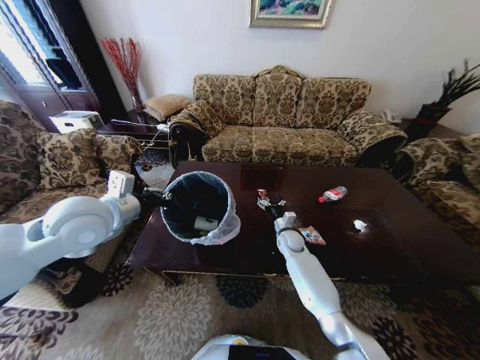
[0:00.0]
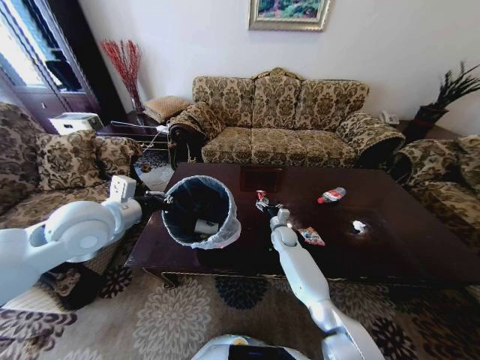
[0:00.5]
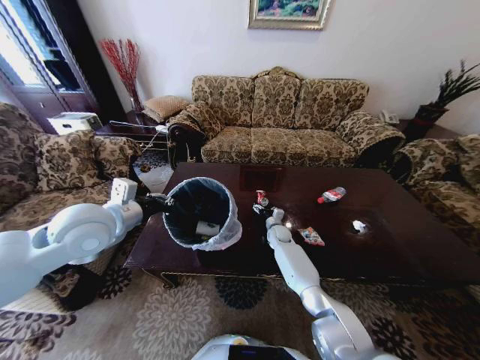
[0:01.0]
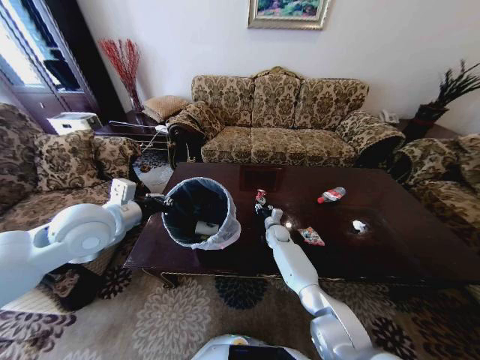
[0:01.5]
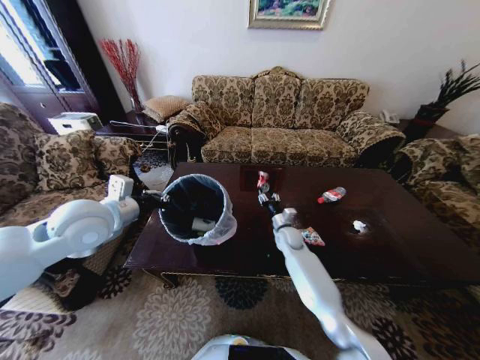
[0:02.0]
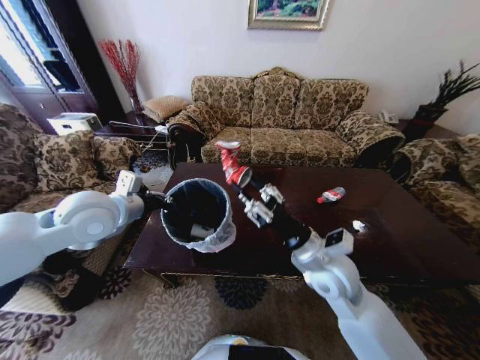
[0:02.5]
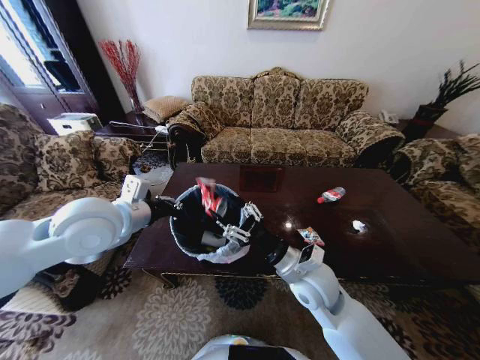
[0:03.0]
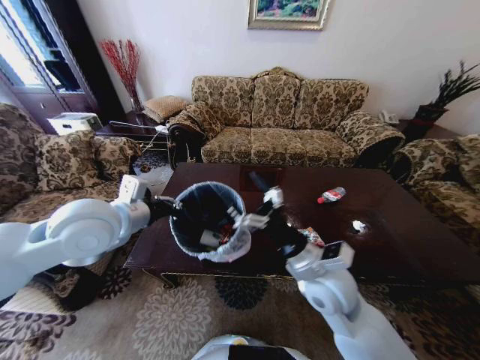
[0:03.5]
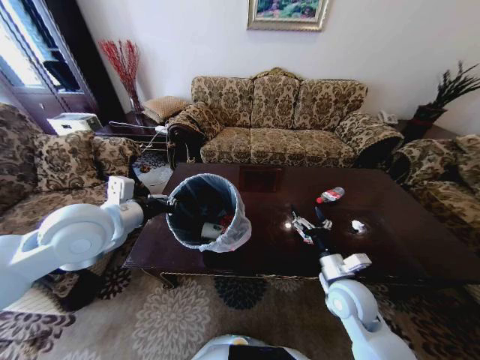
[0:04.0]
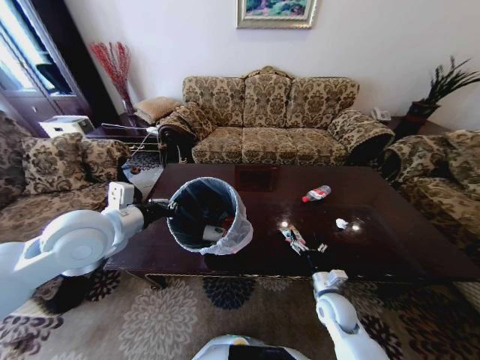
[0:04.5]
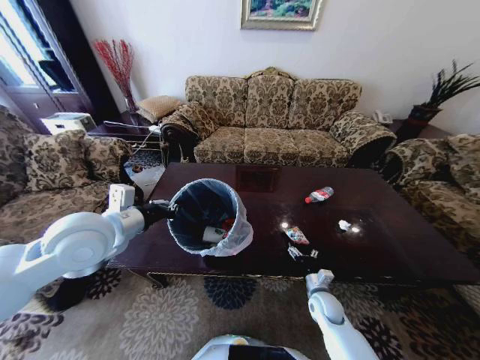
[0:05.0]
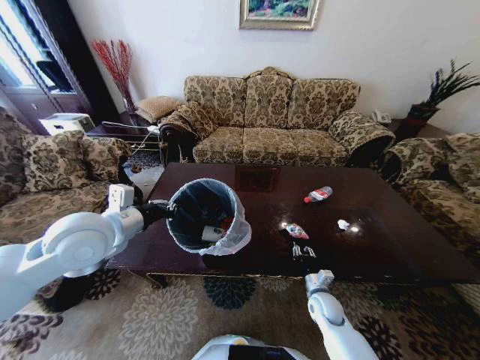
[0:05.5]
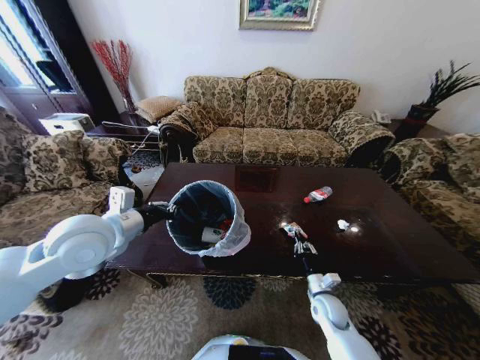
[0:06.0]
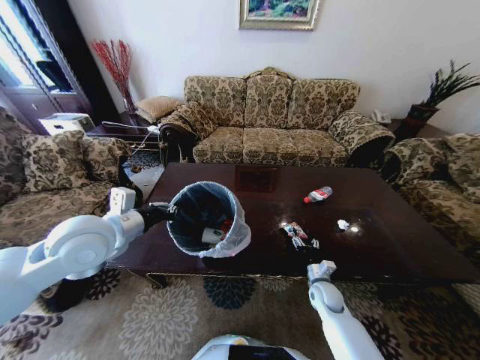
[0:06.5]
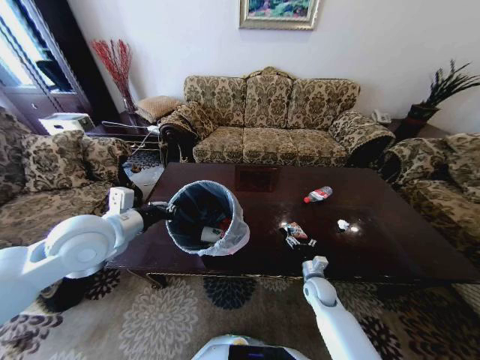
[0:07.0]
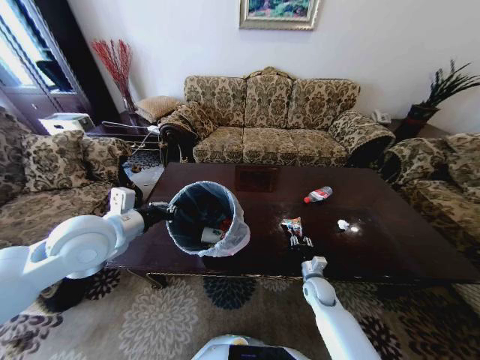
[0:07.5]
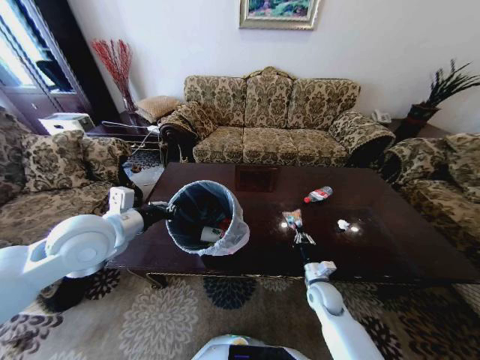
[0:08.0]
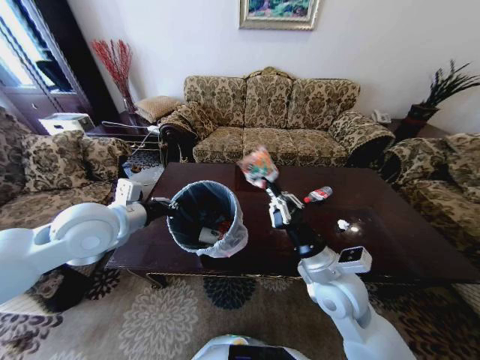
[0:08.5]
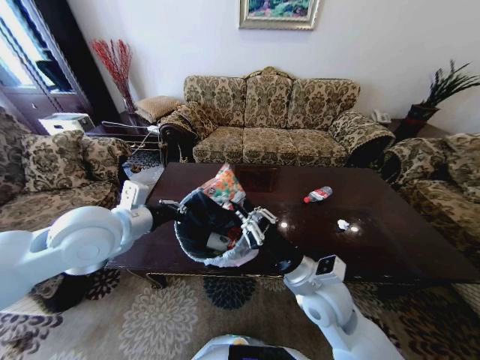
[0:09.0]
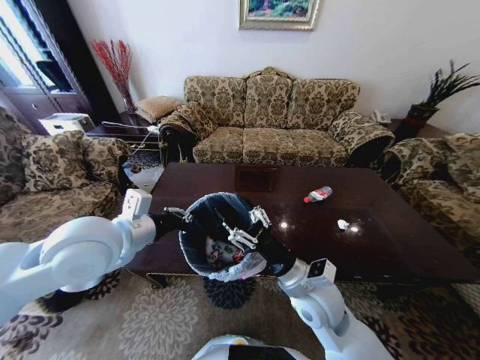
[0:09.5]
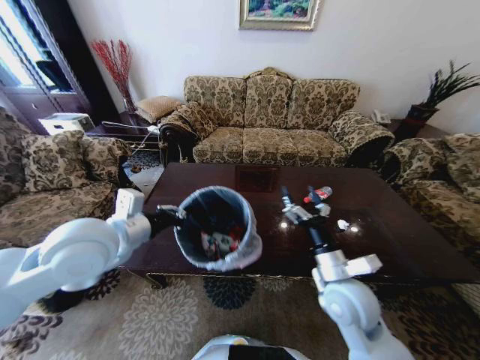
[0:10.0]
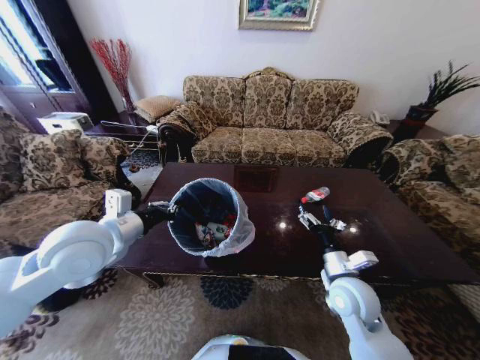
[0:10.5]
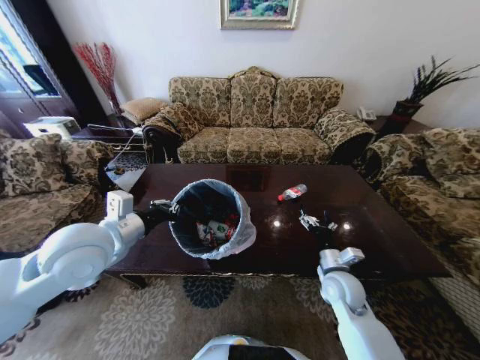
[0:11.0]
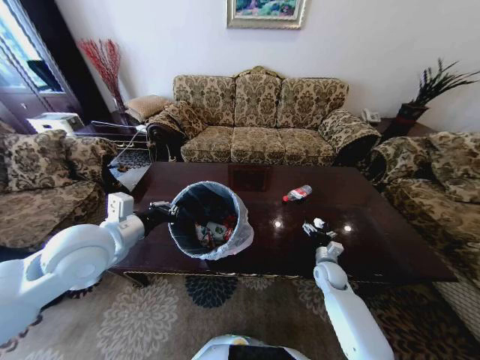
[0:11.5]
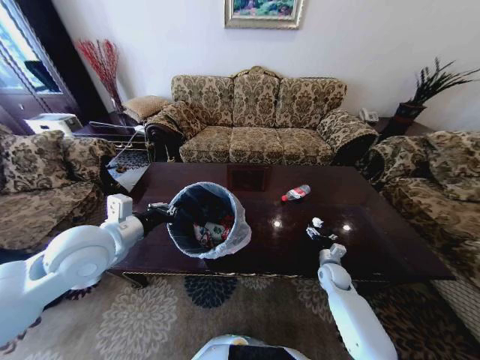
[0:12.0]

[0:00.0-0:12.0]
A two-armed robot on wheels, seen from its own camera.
Task of the whole recording: Move to the front of the table and place the trash on the table into the trash bin.
0:00.0 to 0:02.0: The right gripper closes its fingers.
0:02.0 to 0:04.0: The right gripper travels backward by roughly 20 cm, and opens its fingers.
0:04.0 to 0:06.0: The right gripper is displaced downward by about 15 cm, and closes its fingers.
0:06.0 to 0:08.0: The right gripper opens, then closes once more.
0:08.0 to 0:10.0: The right gripper goes some 20 cm upward, and opens up.
0:10.0 to 0:12.0: The right gripper travels downward, forward and to the right by roughly 30 cm.

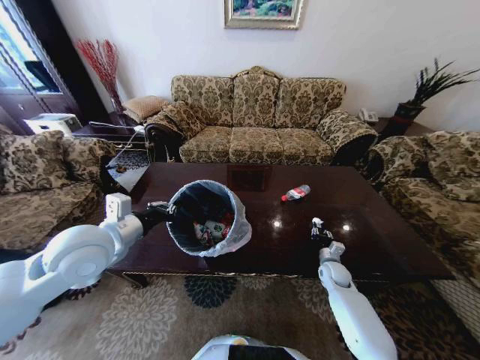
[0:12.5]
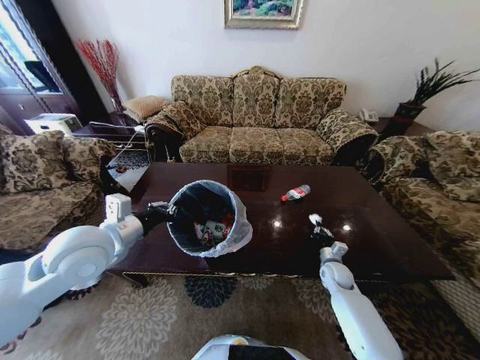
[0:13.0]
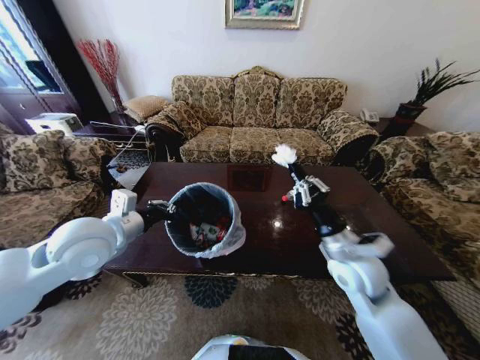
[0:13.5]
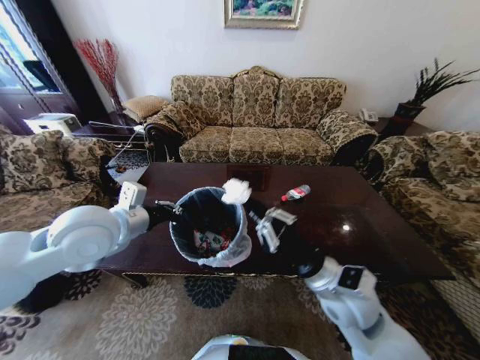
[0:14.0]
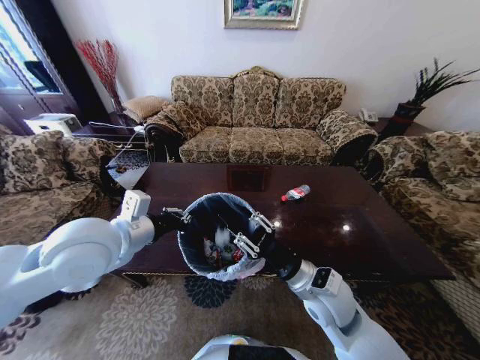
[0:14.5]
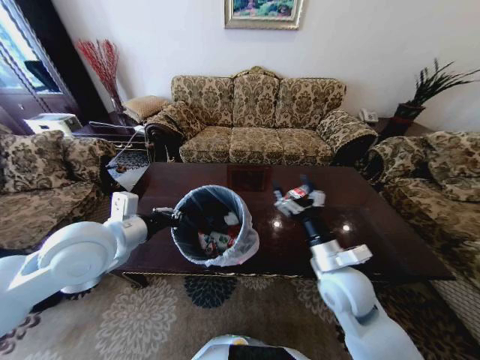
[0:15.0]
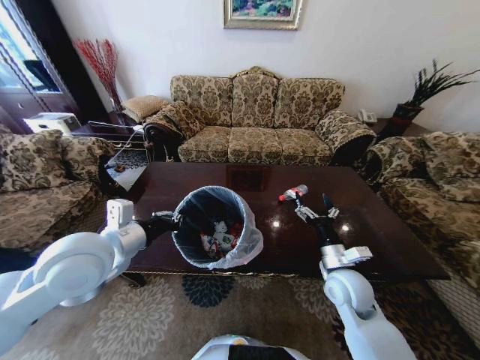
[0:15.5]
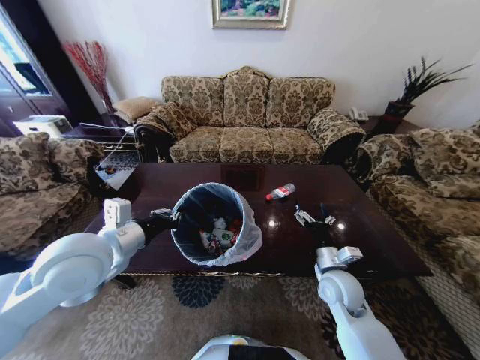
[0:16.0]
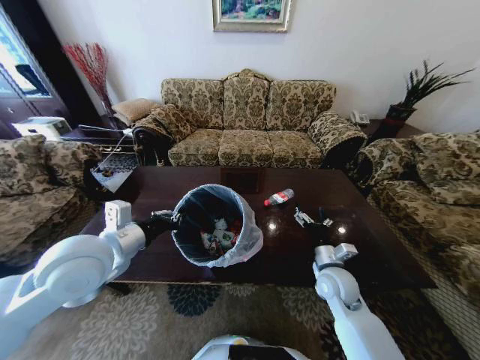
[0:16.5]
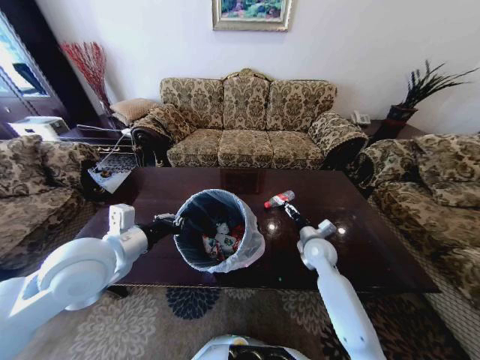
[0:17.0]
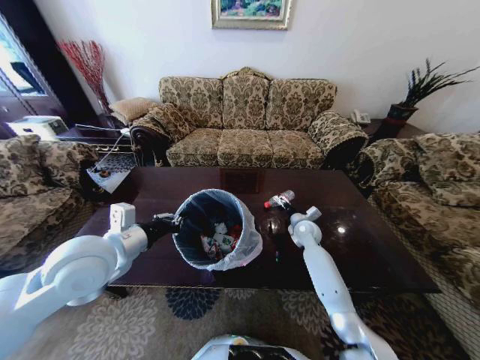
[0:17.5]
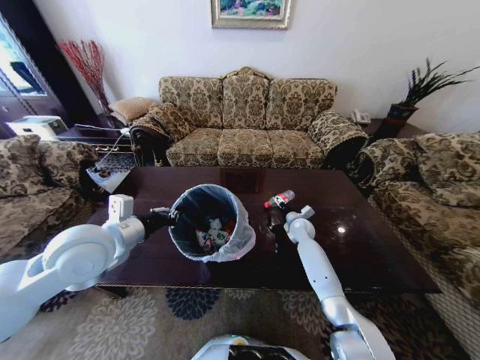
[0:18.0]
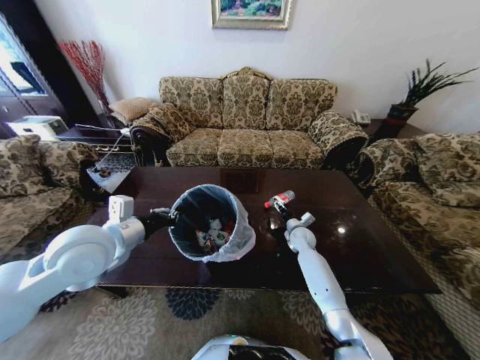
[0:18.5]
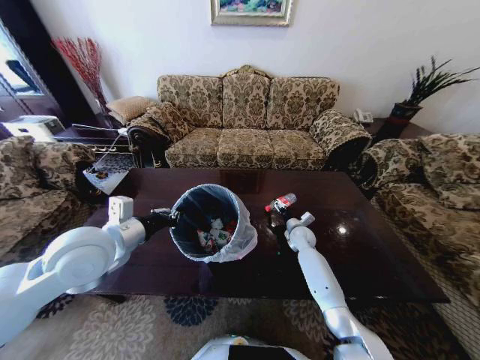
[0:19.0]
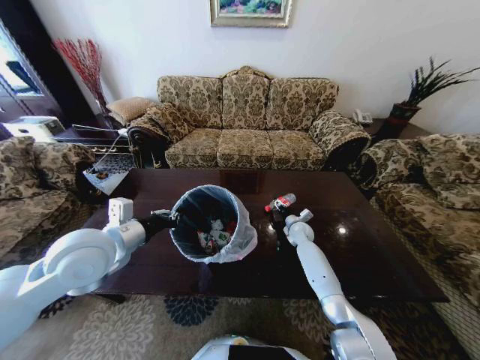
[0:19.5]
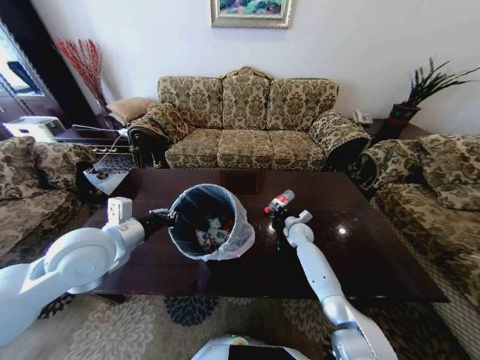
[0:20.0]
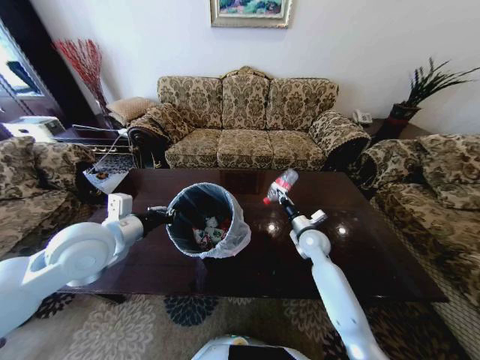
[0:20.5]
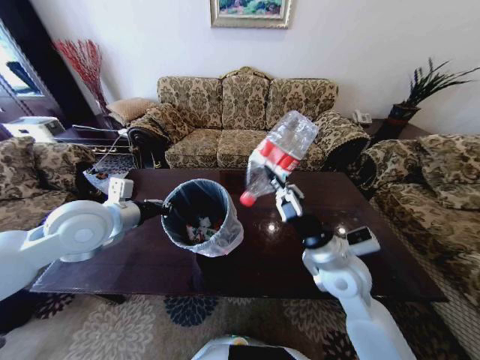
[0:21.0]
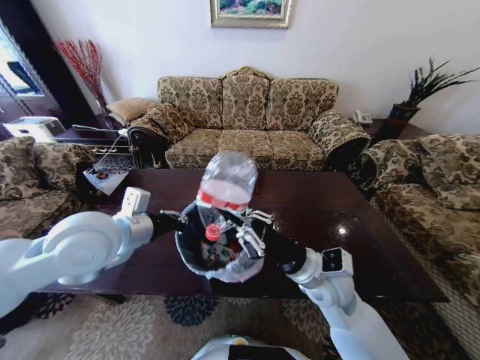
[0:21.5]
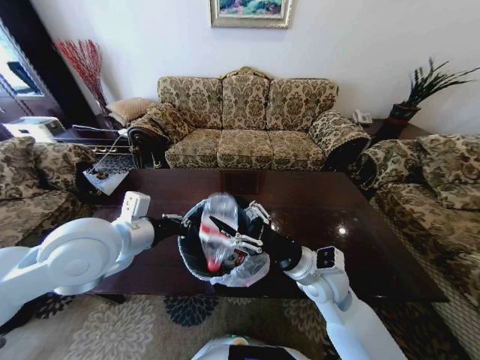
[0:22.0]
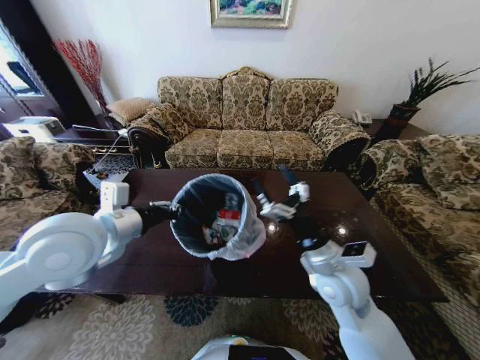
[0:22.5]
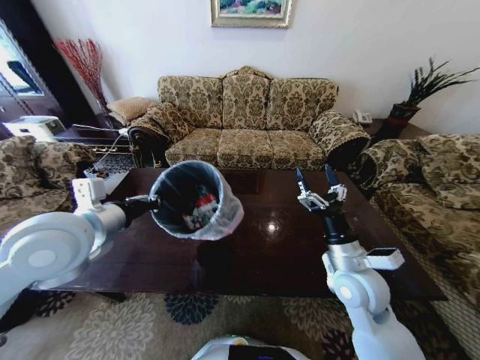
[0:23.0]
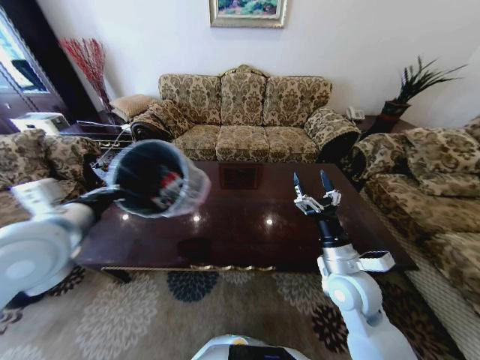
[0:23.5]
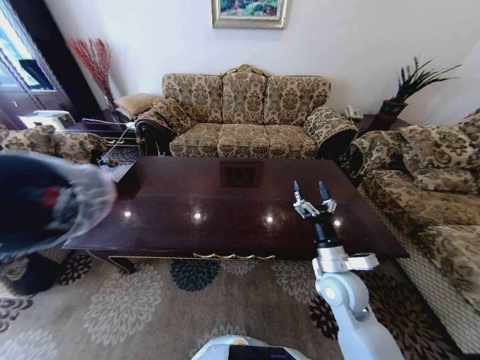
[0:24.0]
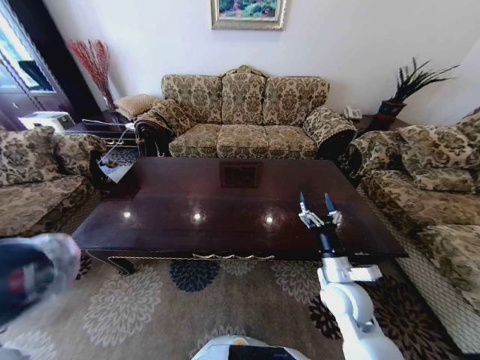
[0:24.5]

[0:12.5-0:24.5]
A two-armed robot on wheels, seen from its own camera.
Task of the whole recording: Move to the front of the table and place the trash on the table into the trash bin.
0:12.5 to 0:14.5: The right gripper goes some 30 cm upward, to the left and backward, while the left gripper moves some 5 cm.
0:14.5 to 0:16.5: The right gripper is displaced downward, to the right and forward by approximately 15 cm, and opens.
0:16.5 to 0:18.5: The right gripper is displaced forward and downward by some 20 cm.
0:18.5 to 0:20.5: The right gripper travels upward and backward by some 10 cm, and closes its fingers.
0:20.5 to 0:22.5: The right gripper is displaced backward and upward by about 20 cm, and opens, while the left gripper travels upward by some 5 cm.
0:22.5 to 0:24.5: The left gripper travels downward, to the left and backward by about 30 cm; the right gripper heads downward and to the right, covering about 10 cm.

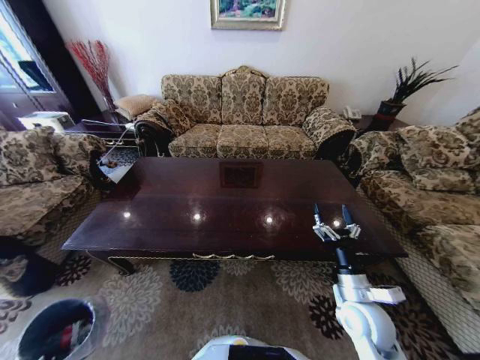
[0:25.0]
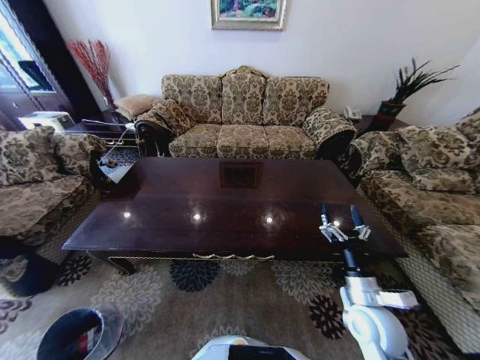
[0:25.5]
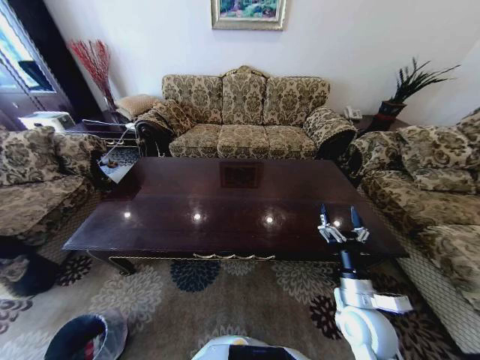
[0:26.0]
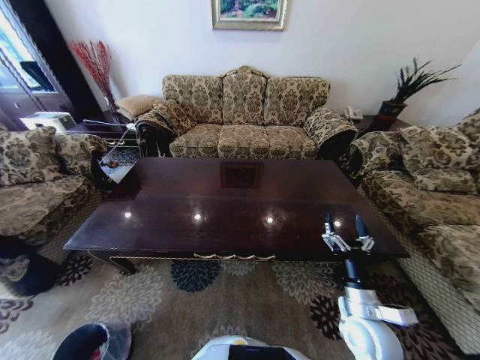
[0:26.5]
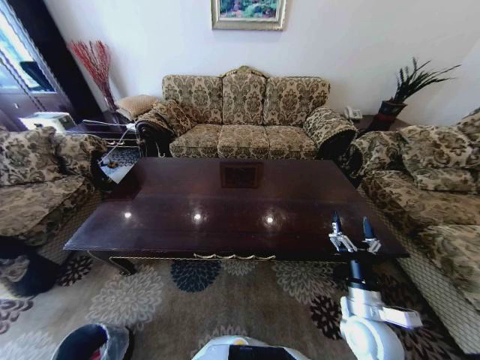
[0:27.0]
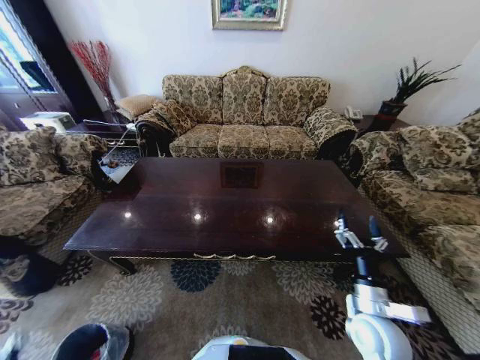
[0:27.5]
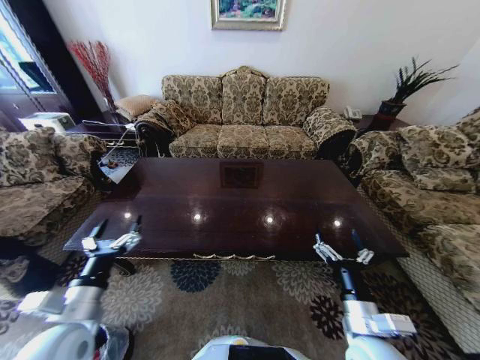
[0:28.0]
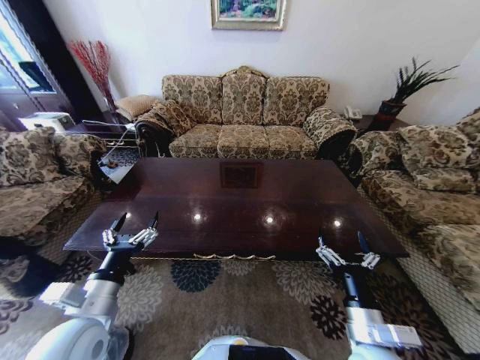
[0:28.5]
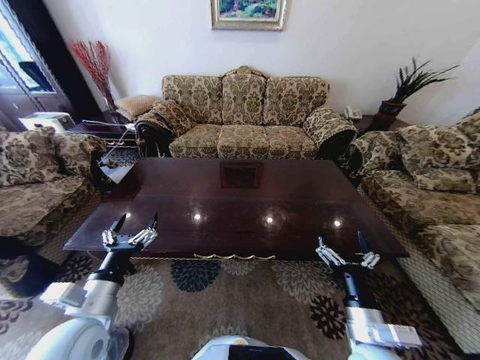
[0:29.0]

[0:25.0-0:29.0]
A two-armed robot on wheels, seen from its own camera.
Task of the whole recording: Move to the front of the table and place the trash on the table into the trash bin.
0:25.0 to 0:27.0: The left gripper opens.
0:27.0 to 0:29.0: The right gripper goes roughly 5 cm backward. Meanwhile the left gripper travels upward and to the right by roughly 40 cm.
